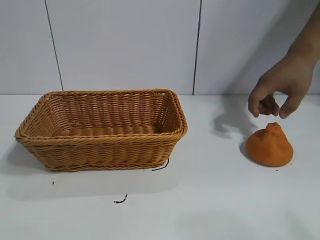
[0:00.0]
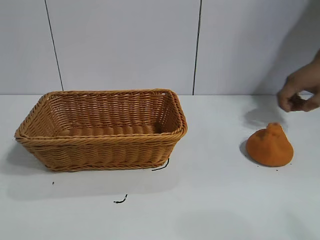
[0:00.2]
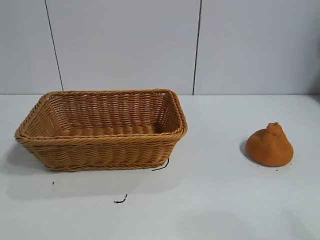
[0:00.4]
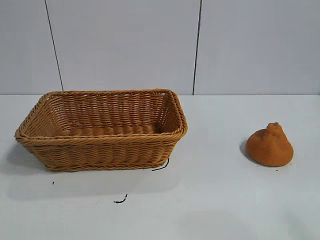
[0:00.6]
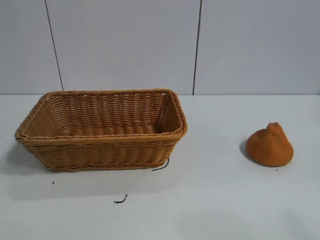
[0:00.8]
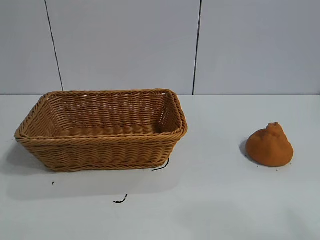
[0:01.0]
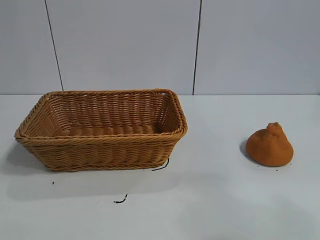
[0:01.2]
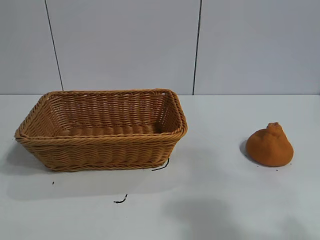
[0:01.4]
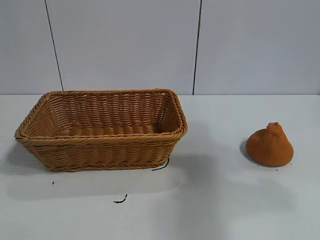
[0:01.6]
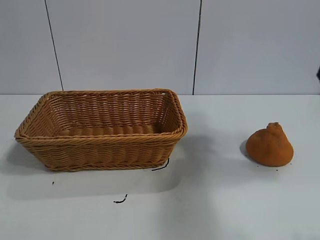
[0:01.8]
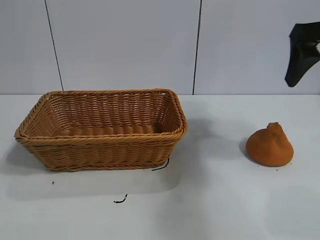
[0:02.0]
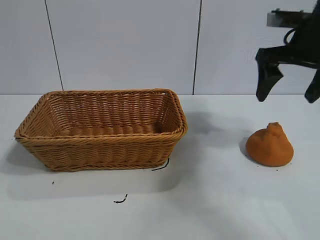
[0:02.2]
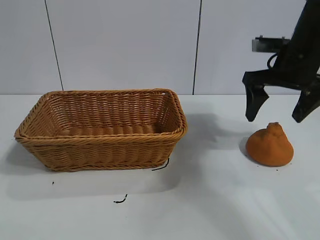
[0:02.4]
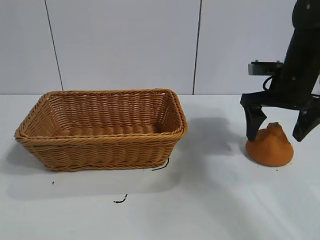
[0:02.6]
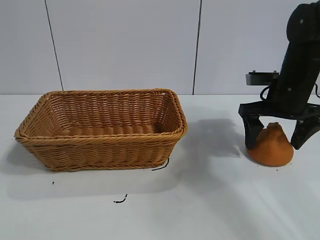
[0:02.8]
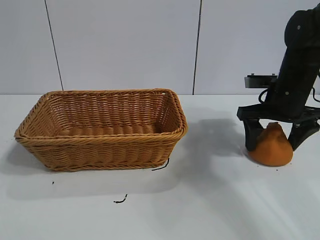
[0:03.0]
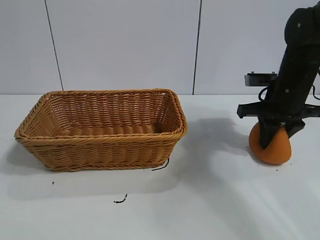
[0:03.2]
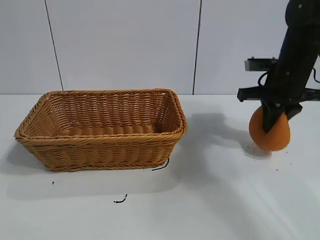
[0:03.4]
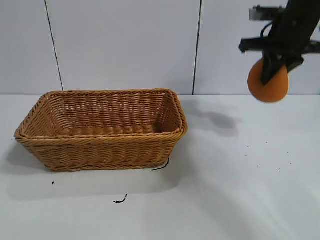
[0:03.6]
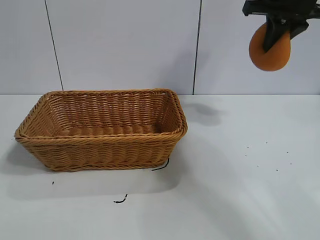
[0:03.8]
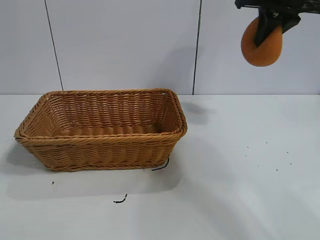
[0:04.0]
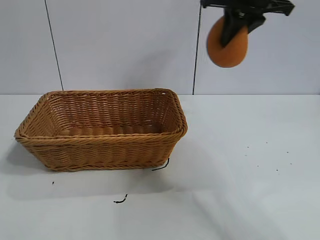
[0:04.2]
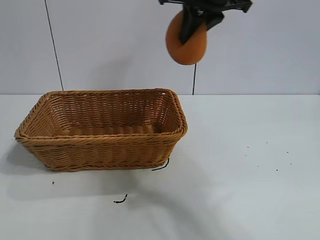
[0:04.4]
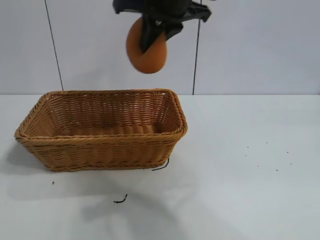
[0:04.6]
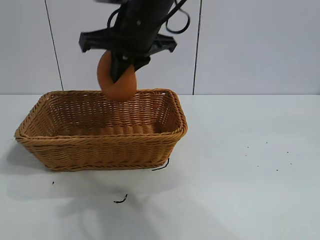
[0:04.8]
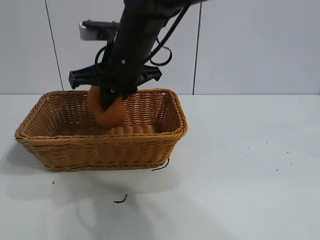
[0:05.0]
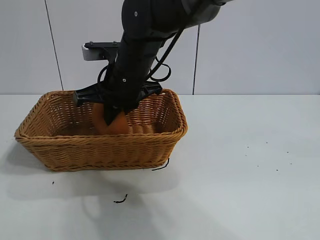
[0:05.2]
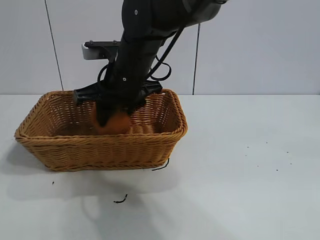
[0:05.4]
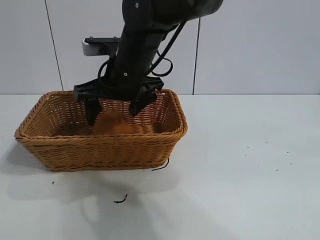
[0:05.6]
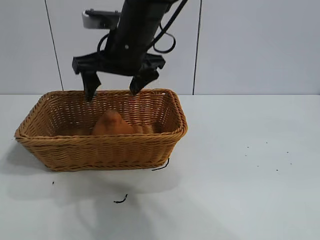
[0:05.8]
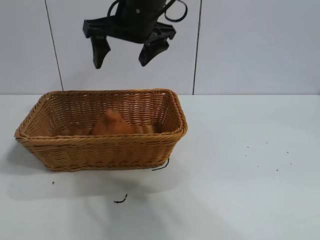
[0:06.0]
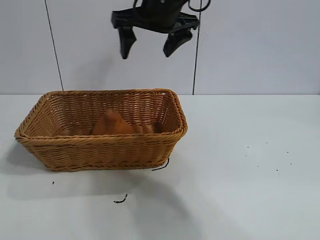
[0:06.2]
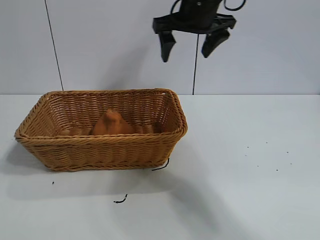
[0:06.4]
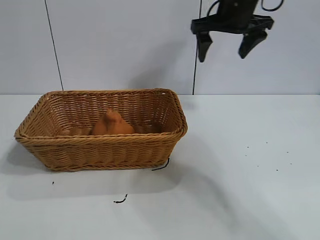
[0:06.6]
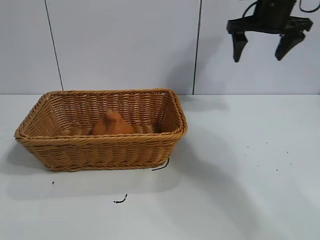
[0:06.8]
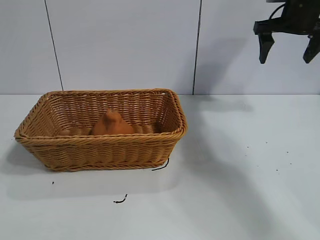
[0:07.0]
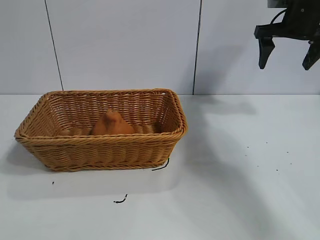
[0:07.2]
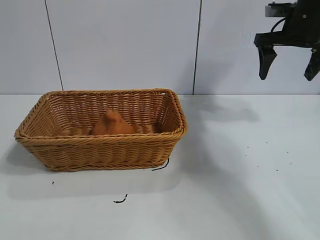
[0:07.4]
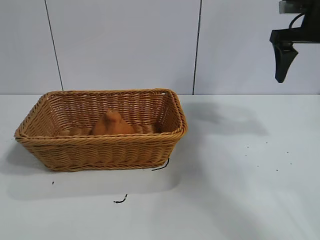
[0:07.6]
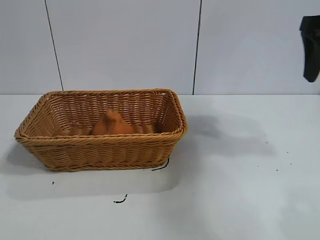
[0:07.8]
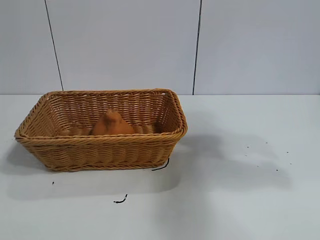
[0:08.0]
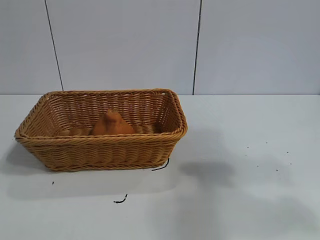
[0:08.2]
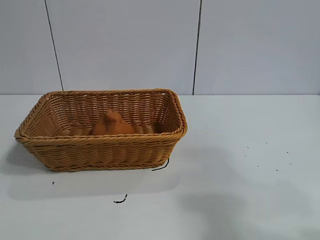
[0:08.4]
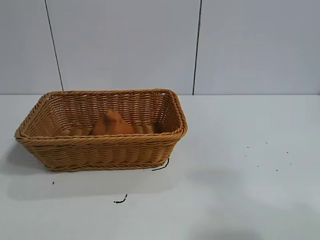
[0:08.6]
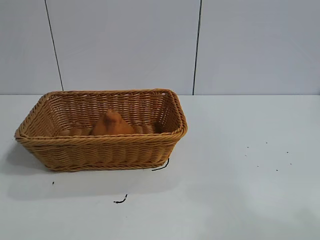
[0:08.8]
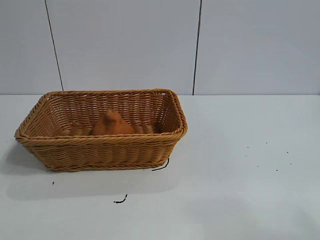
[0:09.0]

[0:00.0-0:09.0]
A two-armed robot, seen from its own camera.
Task of the whole recording: pick up the orange and put it into the basket.
Step, 0:01.0 to 0:03.2: Grasp the orange with right gripper.
Step, 0:03.4 to 0:05.6: Place the orange in the basket with right gripper.
